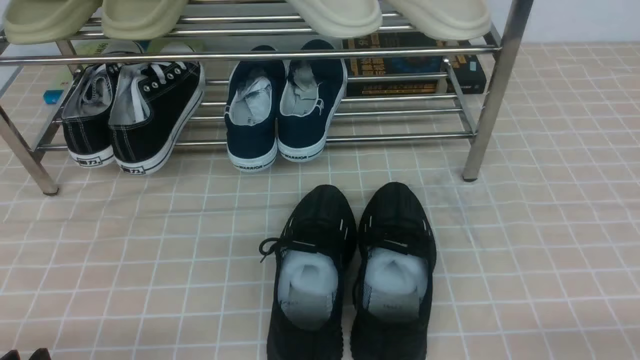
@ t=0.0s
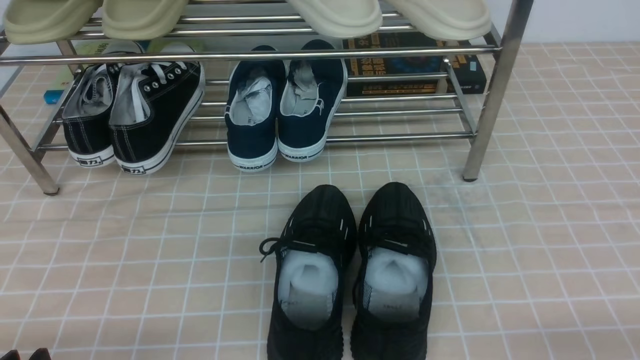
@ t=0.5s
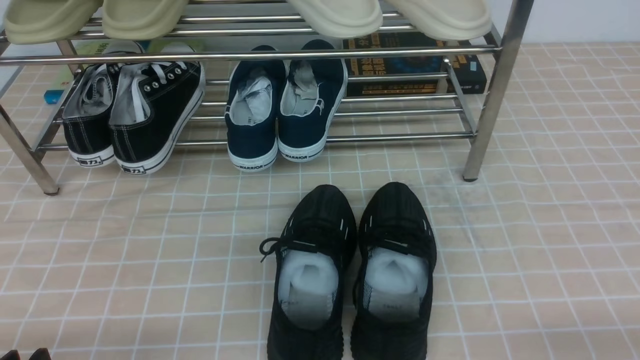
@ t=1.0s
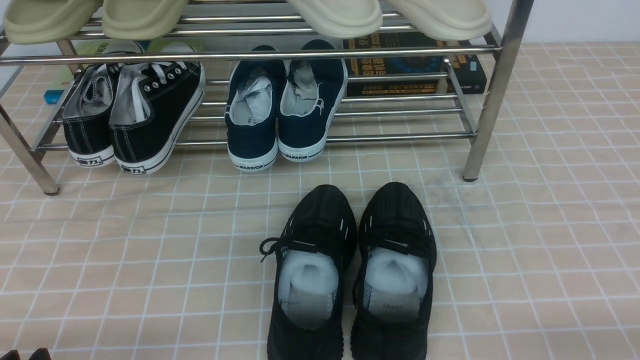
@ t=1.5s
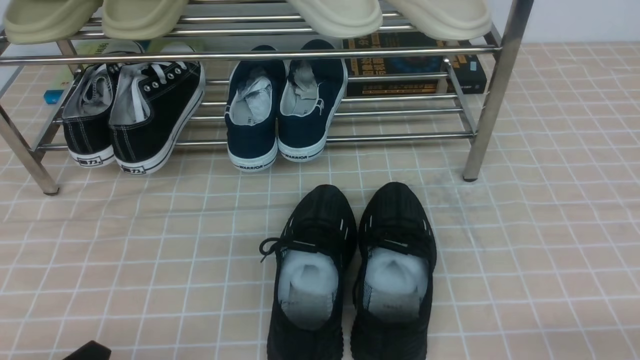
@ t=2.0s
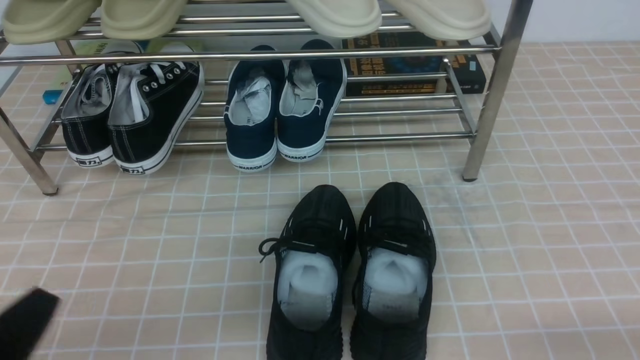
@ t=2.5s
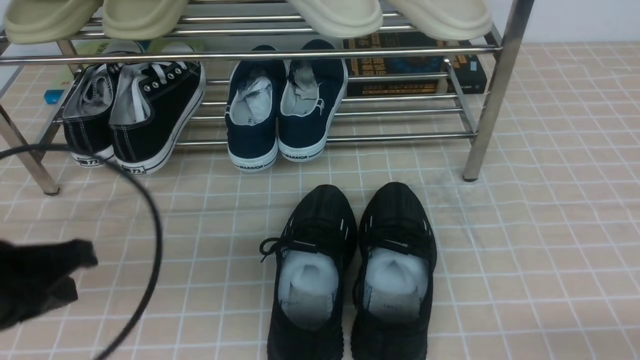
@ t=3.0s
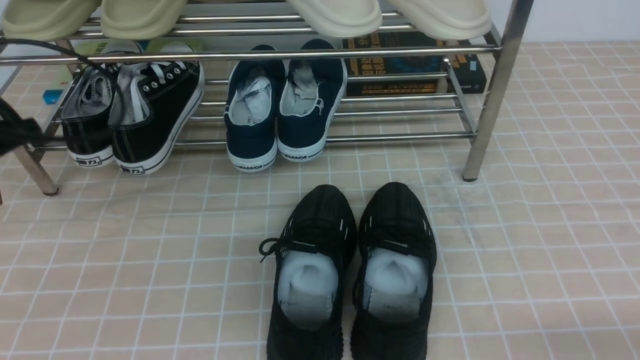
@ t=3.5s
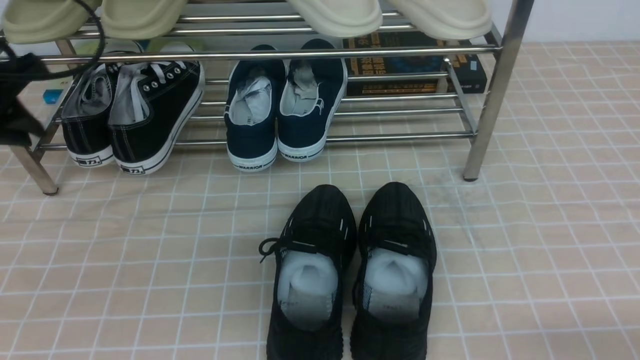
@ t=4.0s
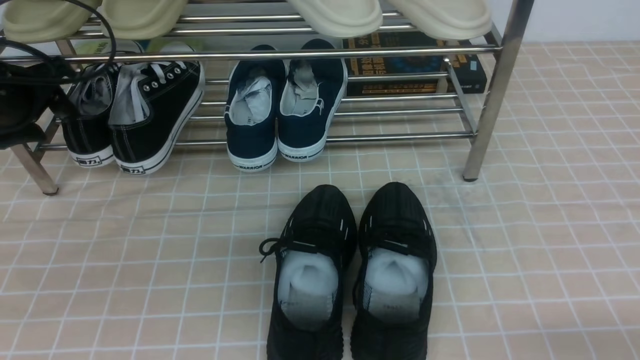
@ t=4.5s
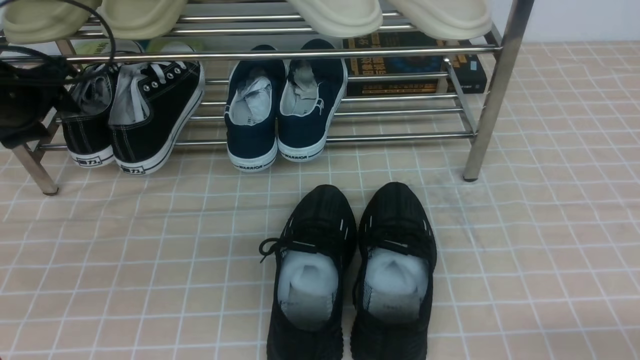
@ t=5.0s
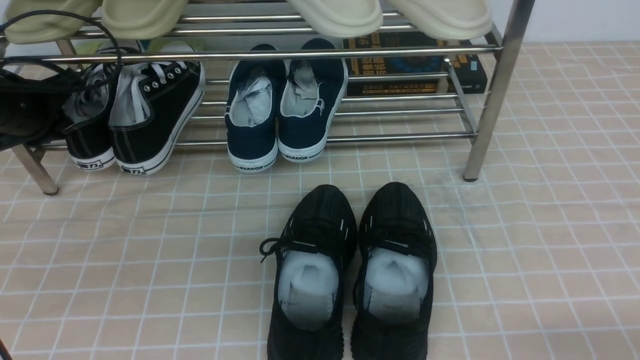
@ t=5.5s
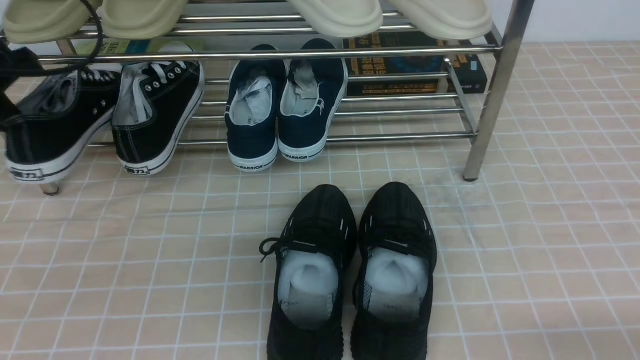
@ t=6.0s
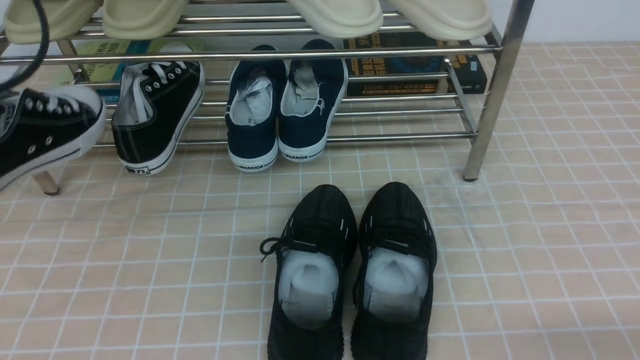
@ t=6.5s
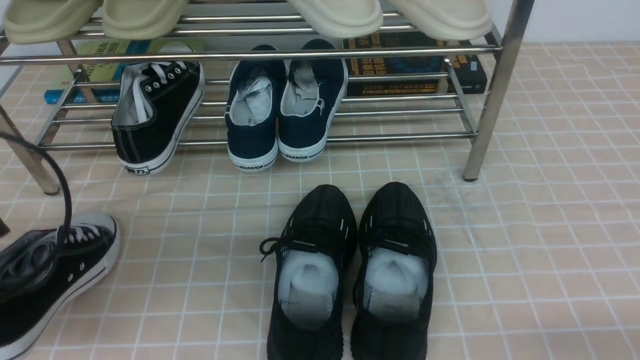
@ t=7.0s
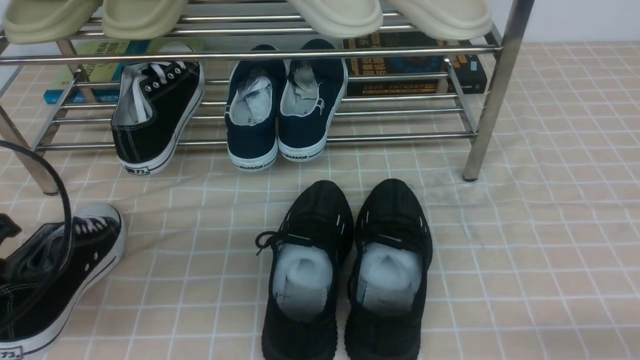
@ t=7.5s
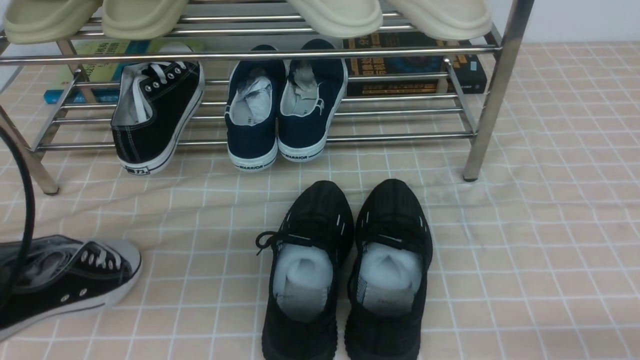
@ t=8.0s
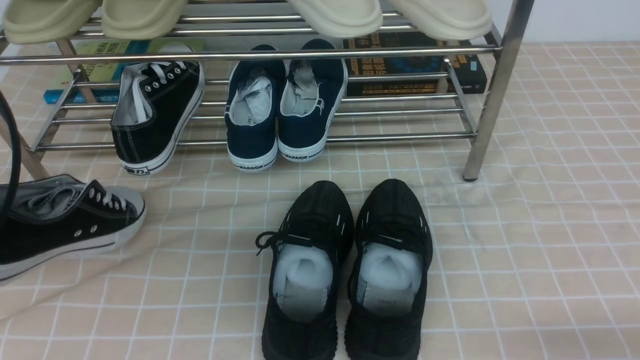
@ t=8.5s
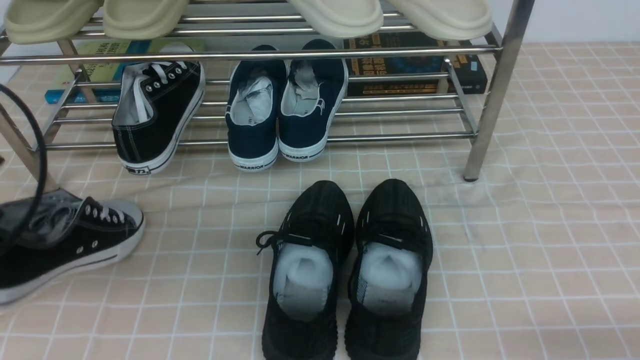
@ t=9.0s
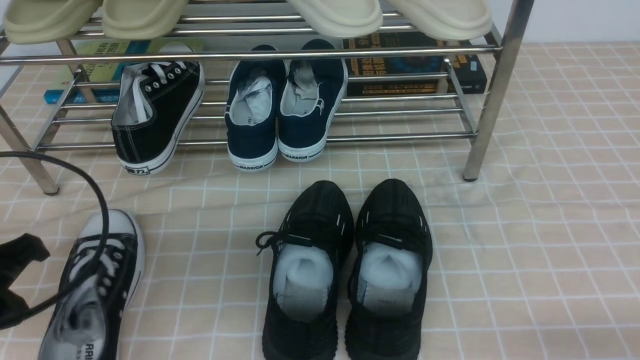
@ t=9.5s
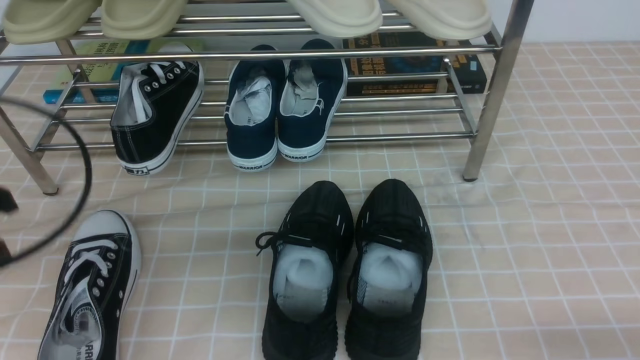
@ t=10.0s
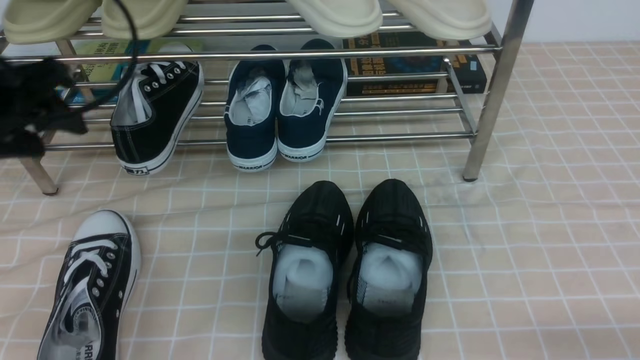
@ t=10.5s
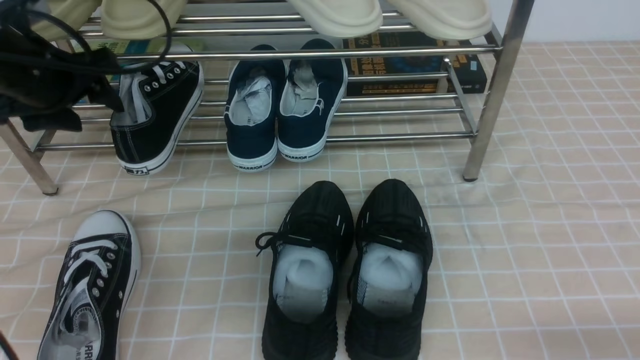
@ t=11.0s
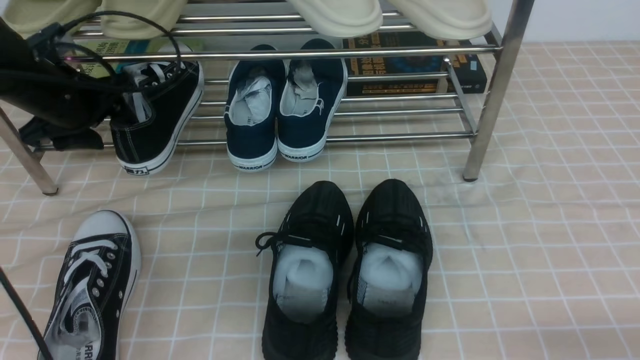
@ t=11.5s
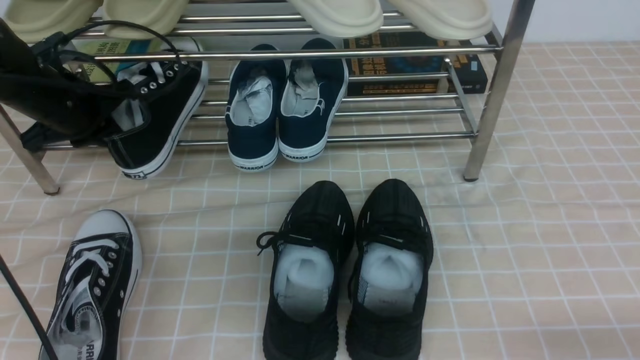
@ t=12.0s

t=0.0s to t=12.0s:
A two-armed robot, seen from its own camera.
Step, t=0.0s to t=5.5s: use the left arm to clamp a shoe on the left side of the shoe rack.
Step, t=6.0s to t=9.0s: Use your left arm to remove the clamped shoe from the shoe rack and put it down.
t=2.0s to t=4.0s: The left gripper heads forward and upward, covering some 30 cm, and closes and opens again.
t=4.0s to t=6.0s: The left gripper moves about 5 cm downward and comes back, and closes.
t=6.0s to t=8.0s: The left gripper goes approximately 20 cm backward.
t=8.0s to t=10.0s: The left gripper opens.
t=10.0s to t=12.0s: The left gripper travels forward by about 25 cm, and closes its fingers.

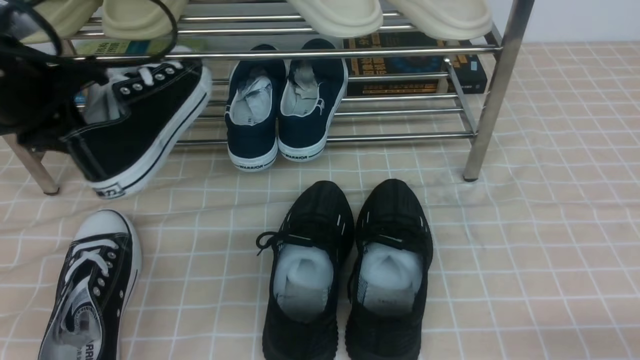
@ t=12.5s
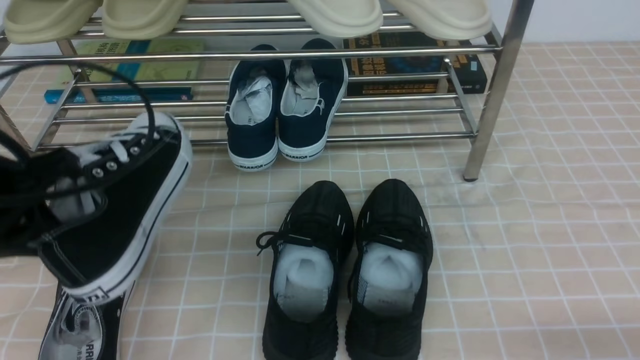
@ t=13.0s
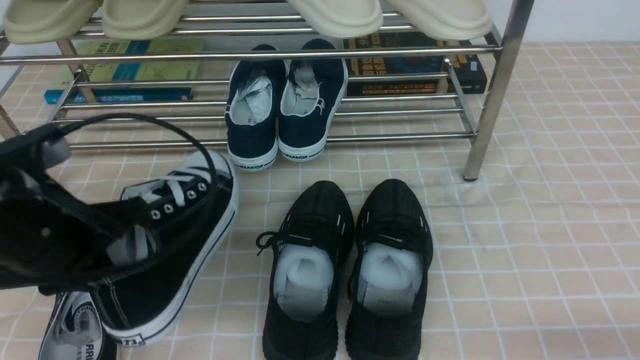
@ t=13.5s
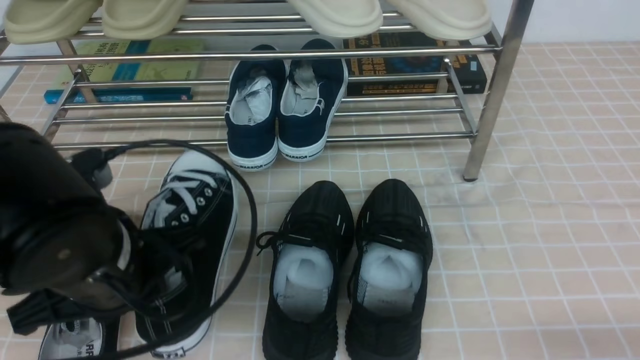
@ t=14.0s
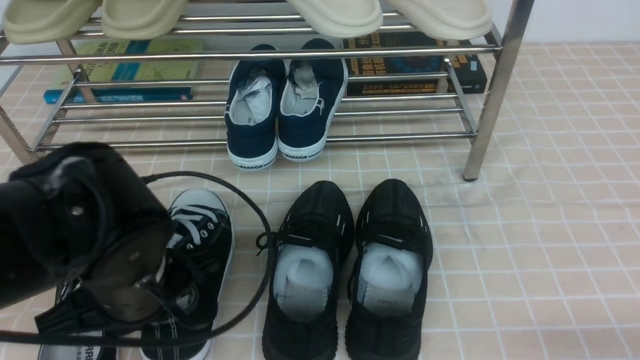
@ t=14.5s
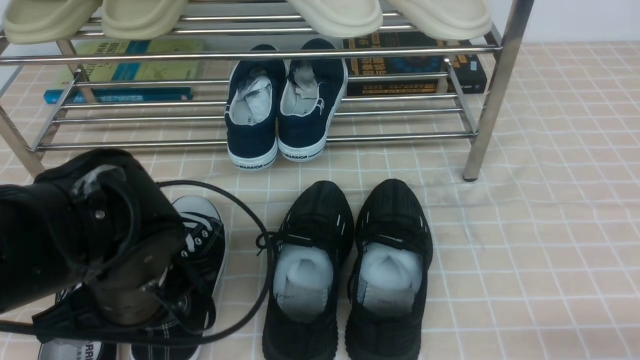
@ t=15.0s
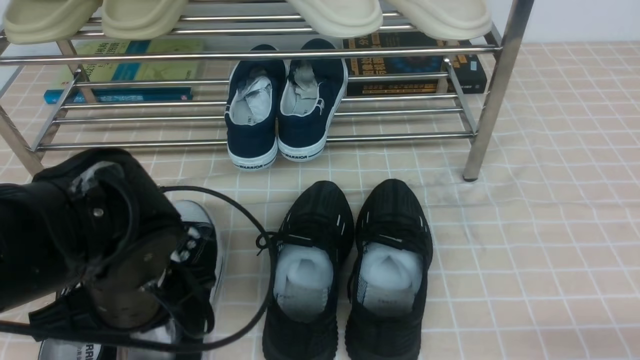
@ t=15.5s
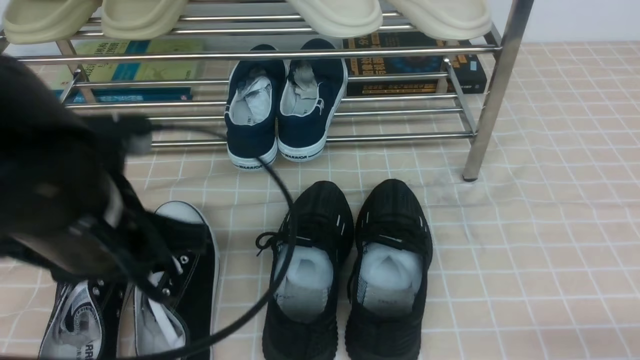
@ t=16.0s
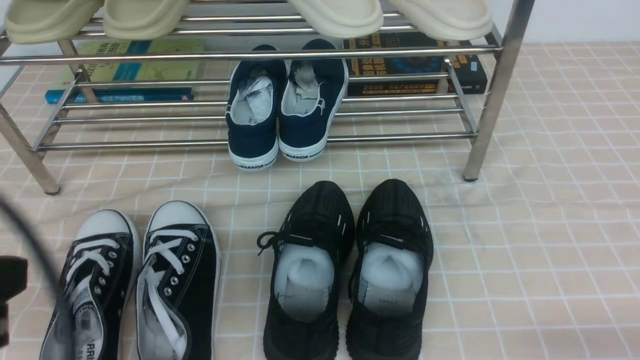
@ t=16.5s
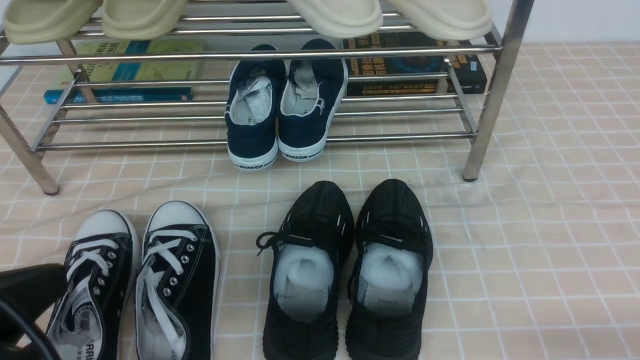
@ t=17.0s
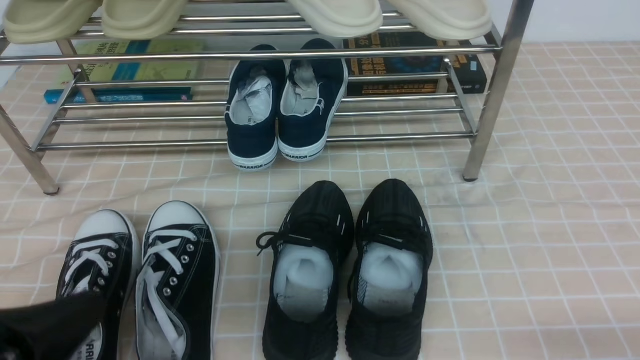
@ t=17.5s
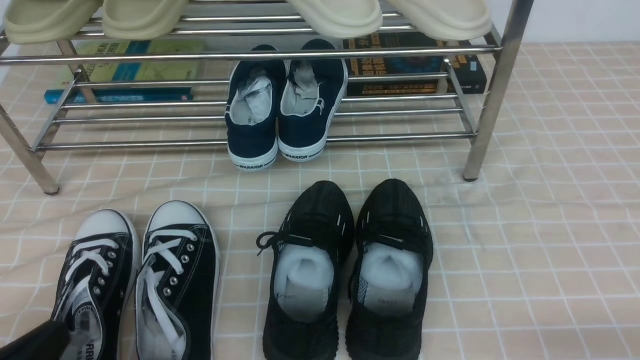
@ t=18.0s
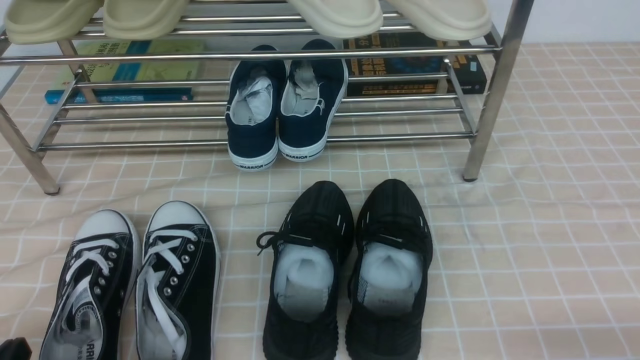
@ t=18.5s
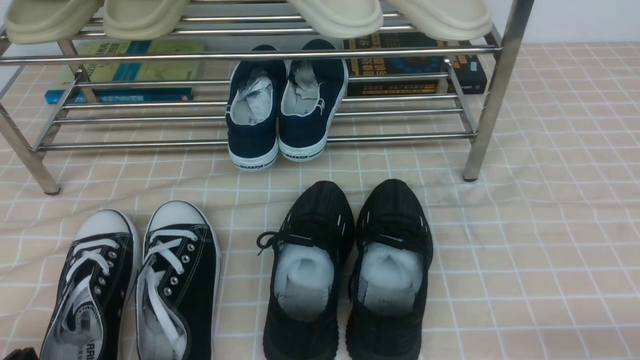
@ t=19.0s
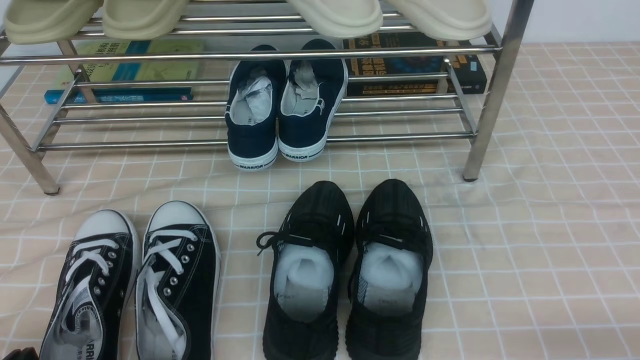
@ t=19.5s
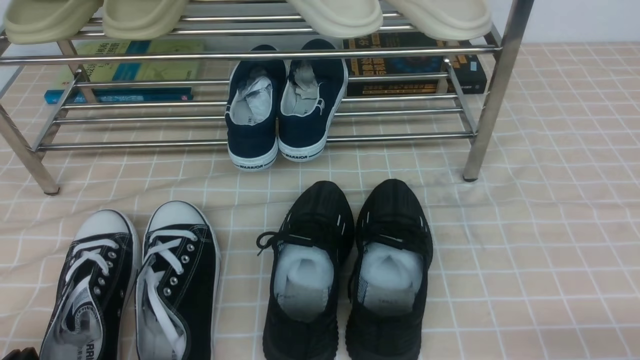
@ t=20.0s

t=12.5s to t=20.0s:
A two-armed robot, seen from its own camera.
Step, t=12.5s to t=15.5s: Use your left arm to remove the clamped shoe from the shoe rack and put it down.
t=12.5s to t=14.5s: The left gripper heads to the right, backward and downward, covering roughly 20 cm.
t=14.5s to t=16.5s: The left gripper heads upward, backward and to the left, covering about 20 cm.
t=16.5s to t=18.0s: The left gripper moves downward, roughly 15 cm.
t=18.0s to t=20.0s: The left gripper is displaced downward by some 5 cm.
